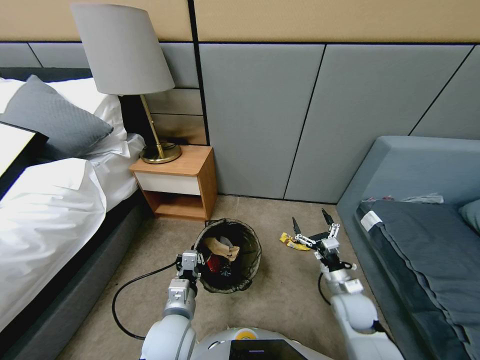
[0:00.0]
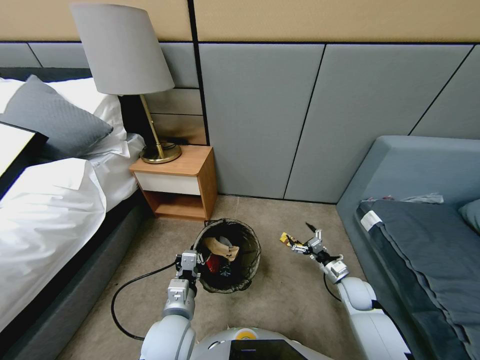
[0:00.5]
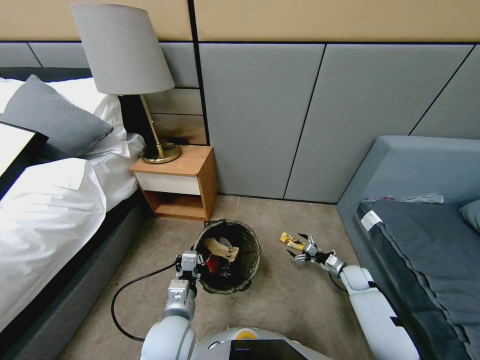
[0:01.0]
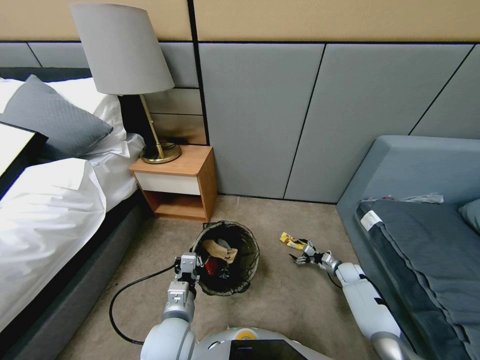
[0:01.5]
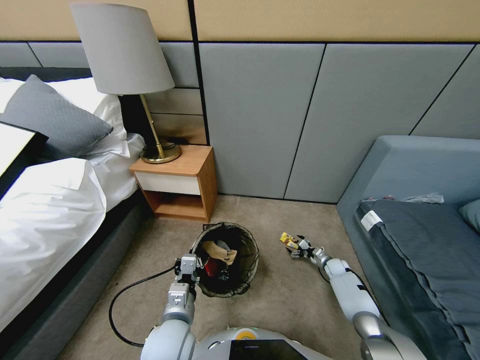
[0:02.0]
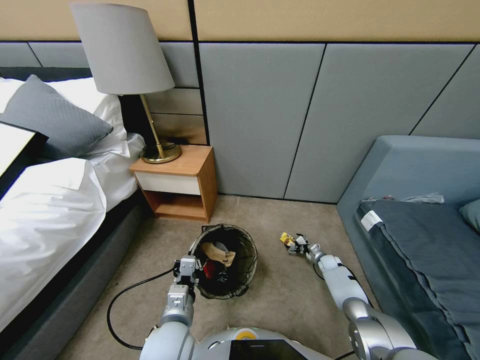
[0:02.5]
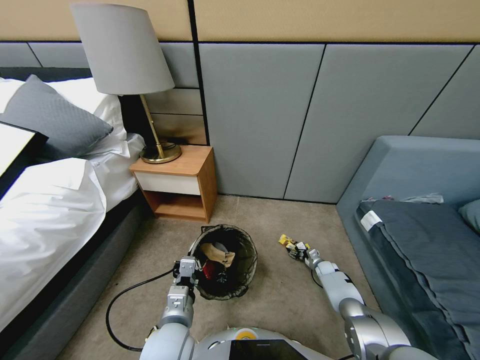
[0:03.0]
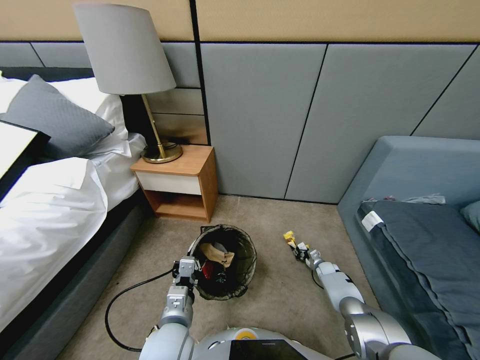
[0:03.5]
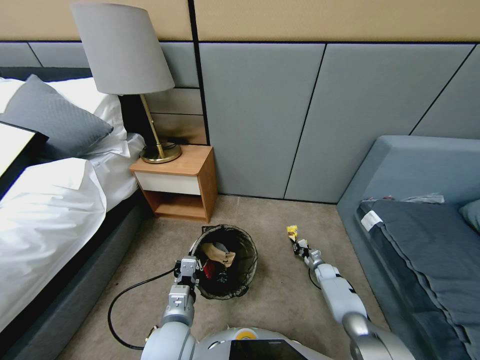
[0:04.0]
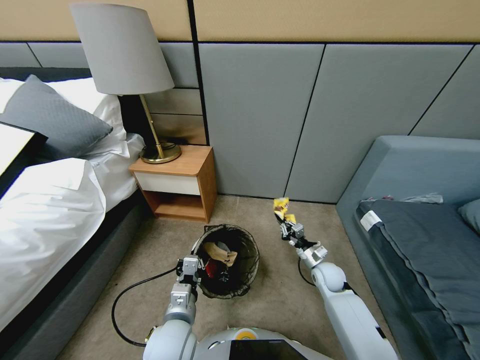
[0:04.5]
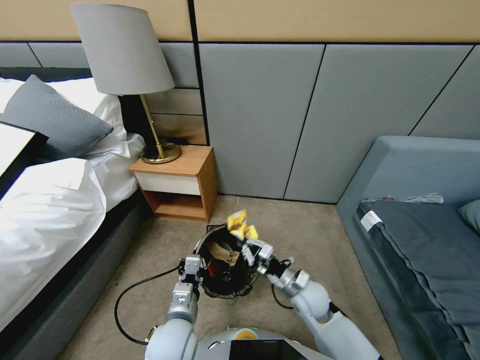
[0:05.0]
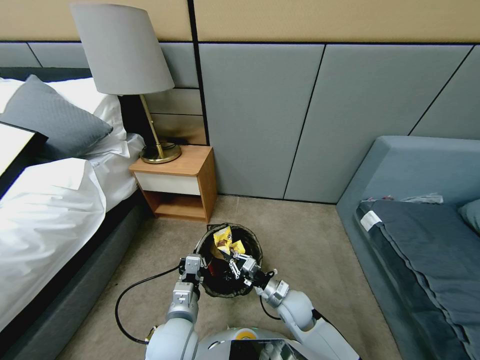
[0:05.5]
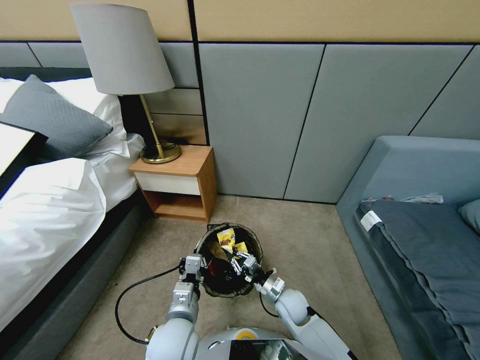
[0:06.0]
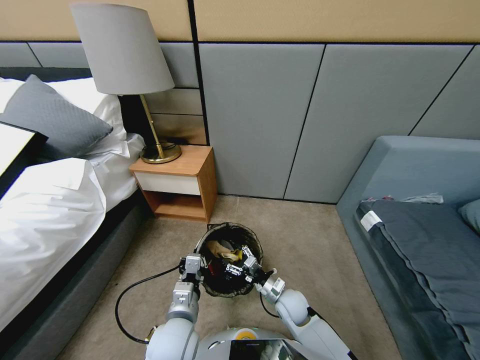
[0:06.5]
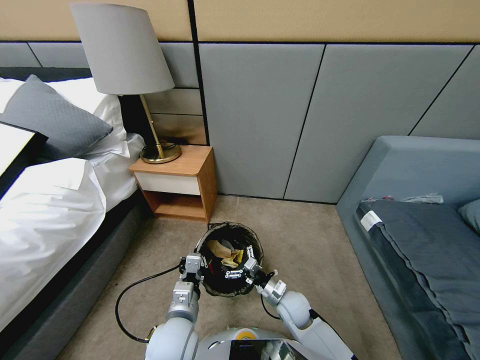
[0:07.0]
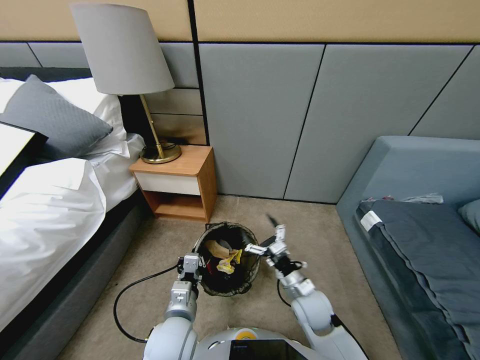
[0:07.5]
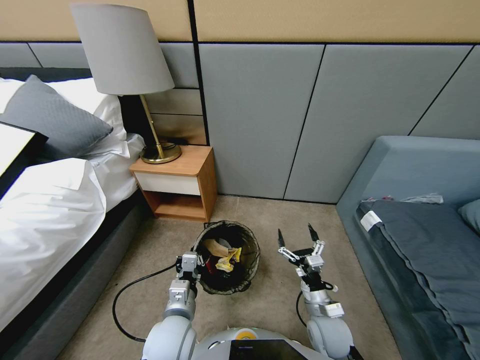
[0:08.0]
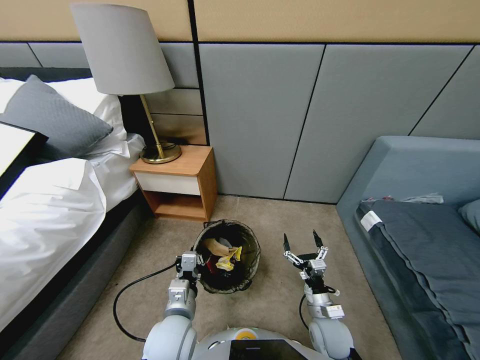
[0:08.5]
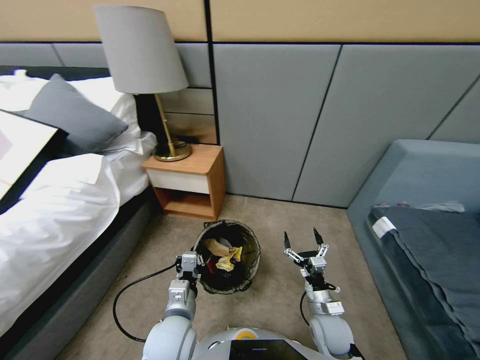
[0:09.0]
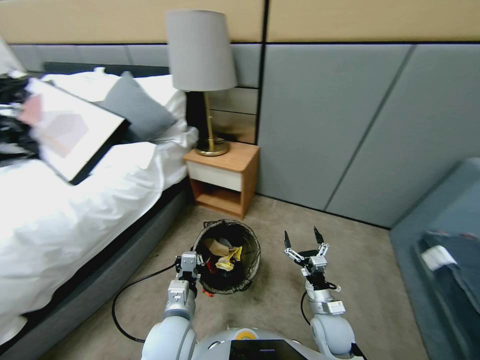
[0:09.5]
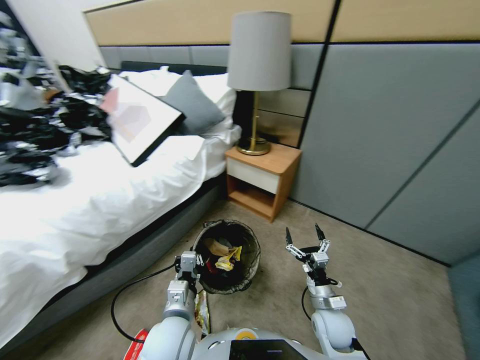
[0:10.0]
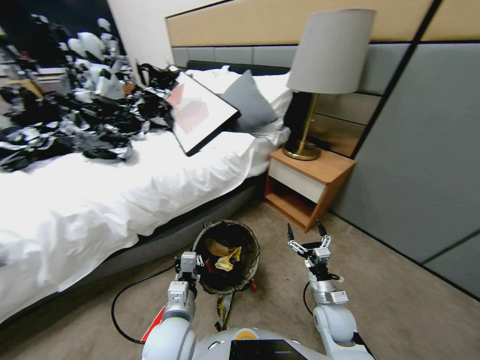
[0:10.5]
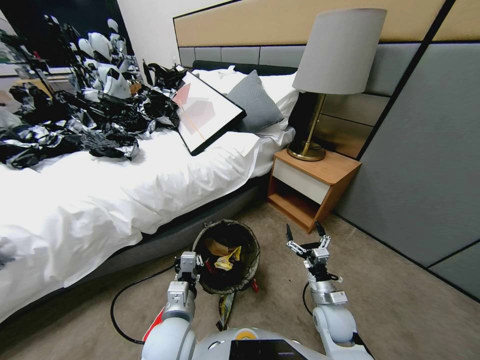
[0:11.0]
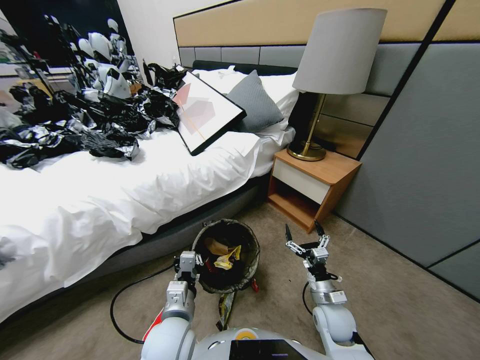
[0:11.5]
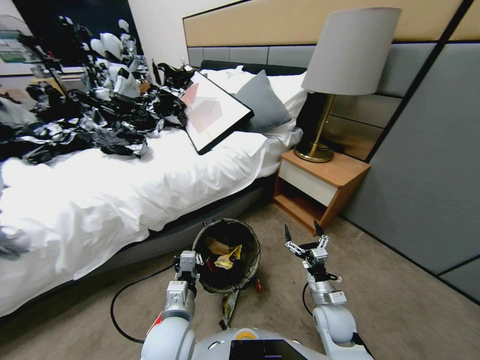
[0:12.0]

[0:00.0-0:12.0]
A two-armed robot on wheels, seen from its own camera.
Task of the whole recording: Pick up the trash bin, then pick up the garbage from the floor and place it into the trash bin.
0:00.0 to 0:02.0: The right gripper is displaced downward, forward and to the right by some 25 cm.
0:02.0 to 0:04.0: The right gripper closes its fingers.
0:04.0 to 0:06.0: The right gripper goes roughly 30 cm to the left, backward and upward.
0:06.0 to 0:08.0: The right gripper shifts roughly 10 cm backward, to the right and upward, and opens.

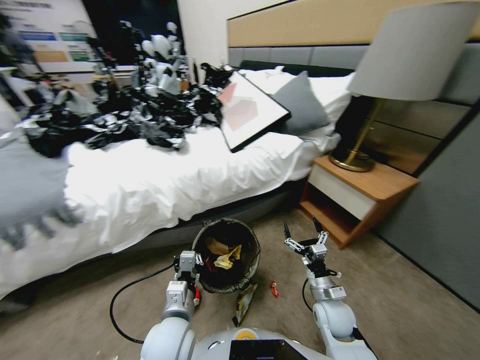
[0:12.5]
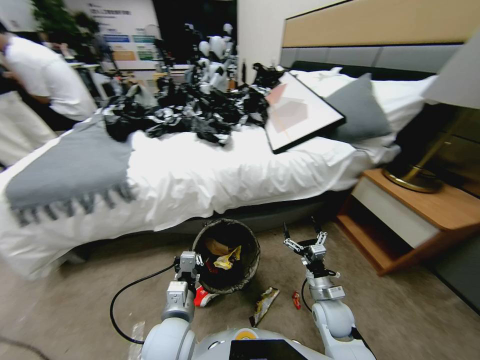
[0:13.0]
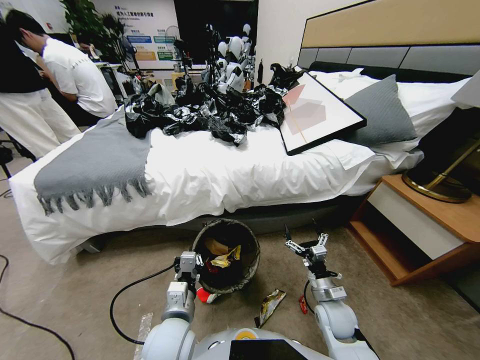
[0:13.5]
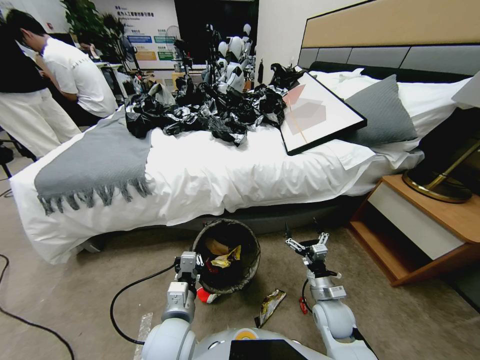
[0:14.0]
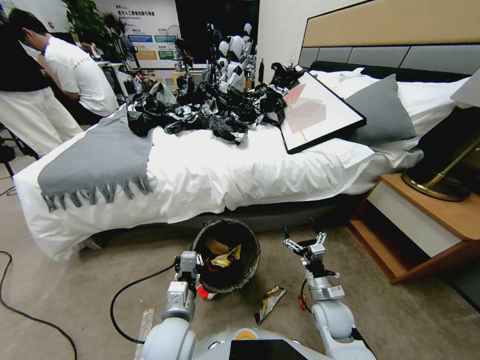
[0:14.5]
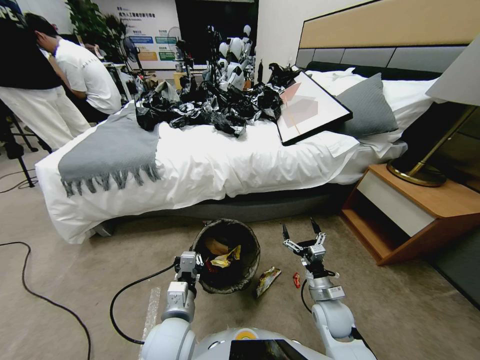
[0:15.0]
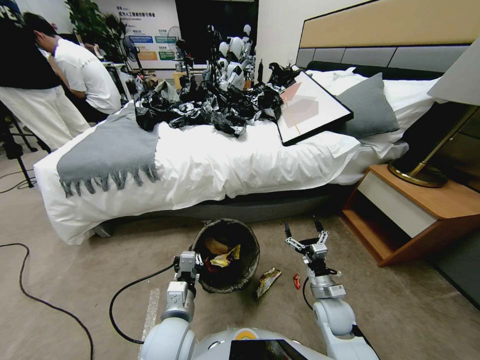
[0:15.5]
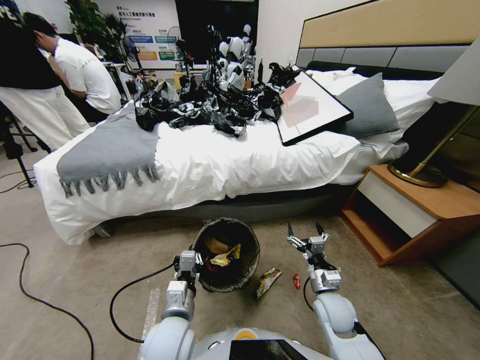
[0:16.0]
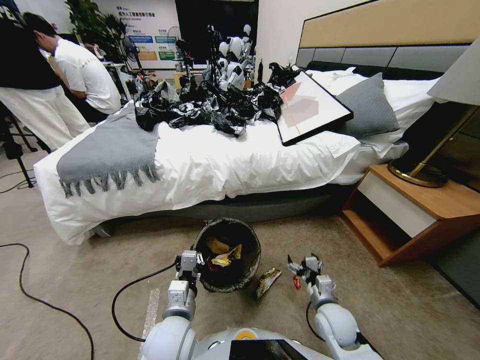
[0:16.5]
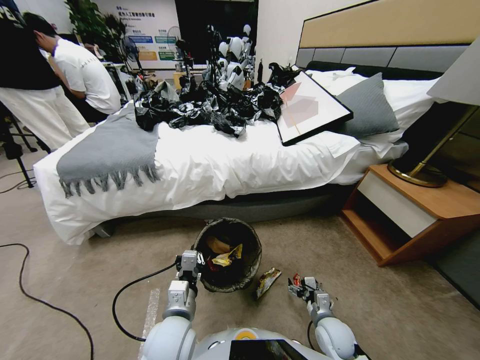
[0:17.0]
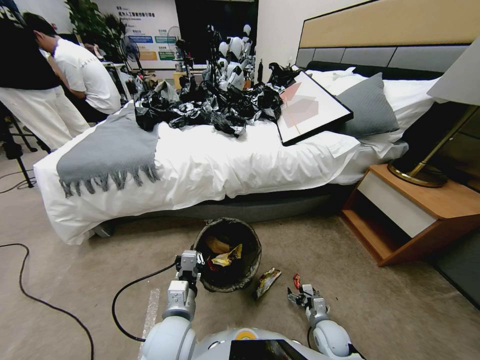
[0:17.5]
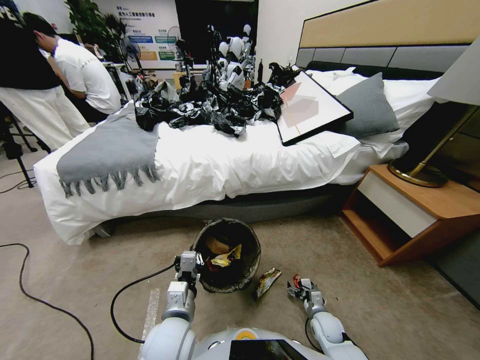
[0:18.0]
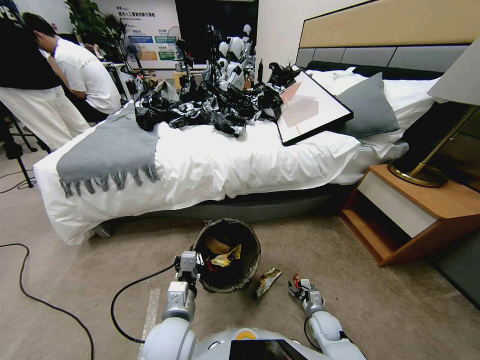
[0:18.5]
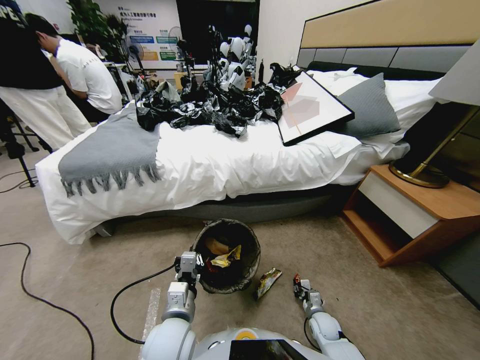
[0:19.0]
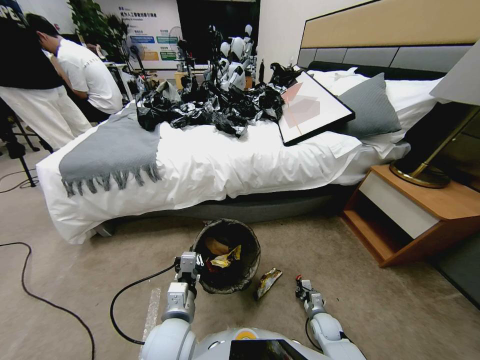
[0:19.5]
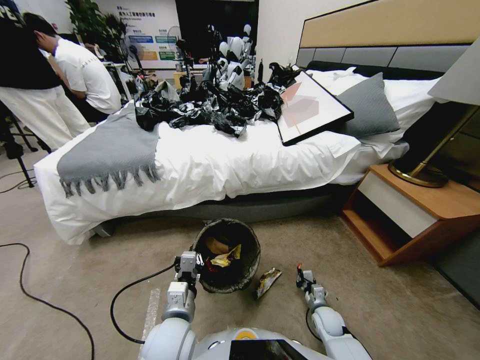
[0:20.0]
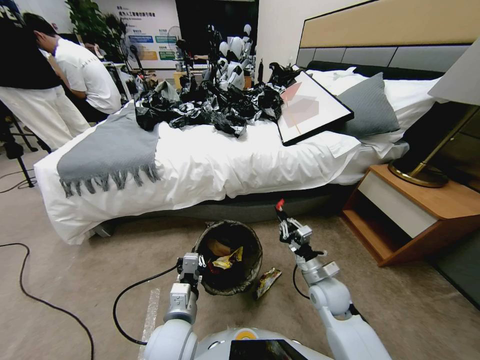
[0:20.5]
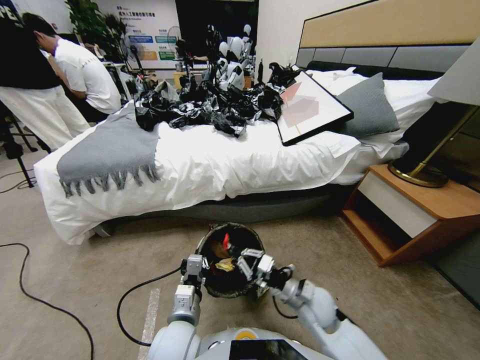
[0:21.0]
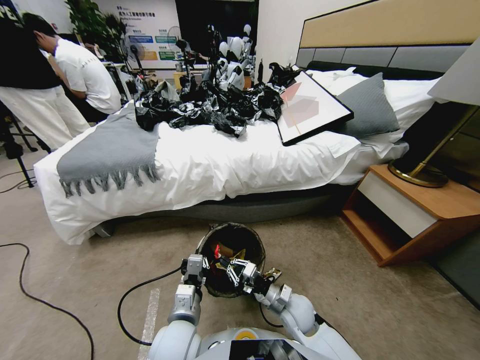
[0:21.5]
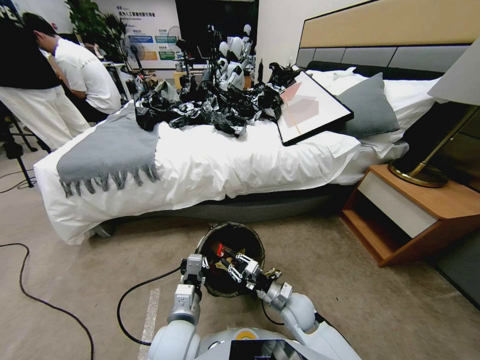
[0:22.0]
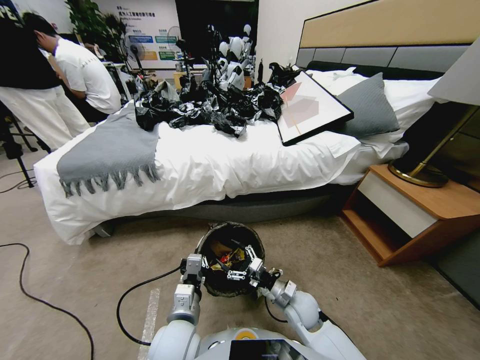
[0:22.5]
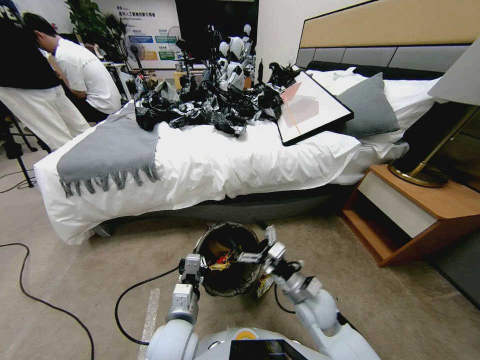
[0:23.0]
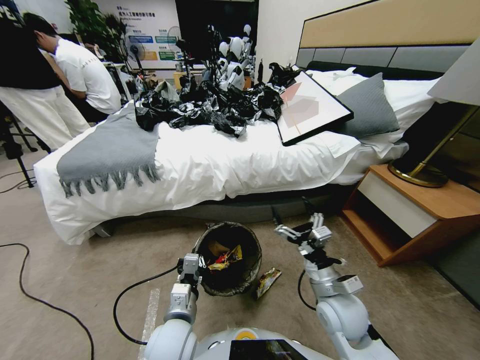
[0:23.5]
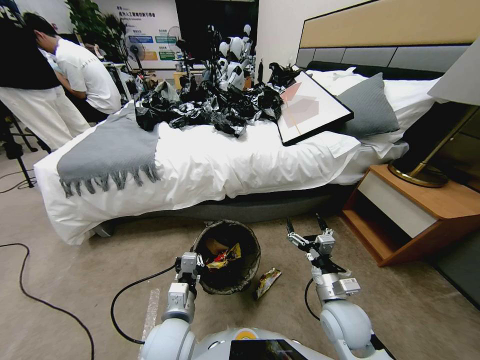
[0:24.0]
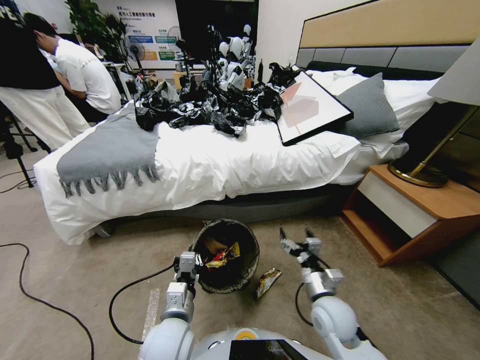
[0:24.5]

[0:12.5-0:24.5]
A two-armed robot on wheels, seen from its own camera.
Task of the whole recording: Pick up the trash bin, then pick up the garbage from the floor and place it into the trash bin.
0:16.5 to 0:18.5: The right gripper heads downward, covering approximately 15 cm.
0:18.5 to 0:20.5: The right gripper is displaced upward by some 25 cm, and closes.
0:20.5 to 0:22.5: The right gripper moves downward and to the left, some 10 cm, and opens its fingers.
0:22.5 to 0:24.5: The right gripper goes roughly 5 cm upward.

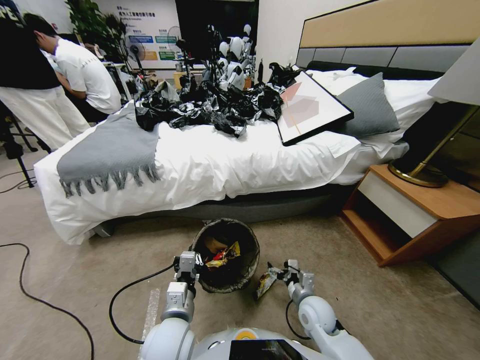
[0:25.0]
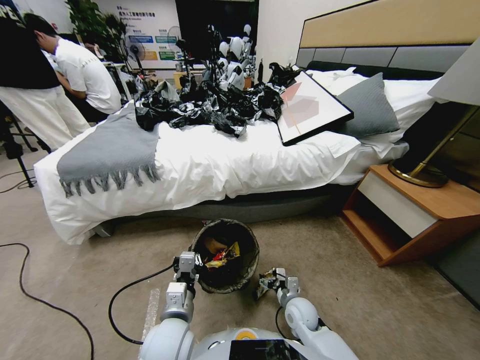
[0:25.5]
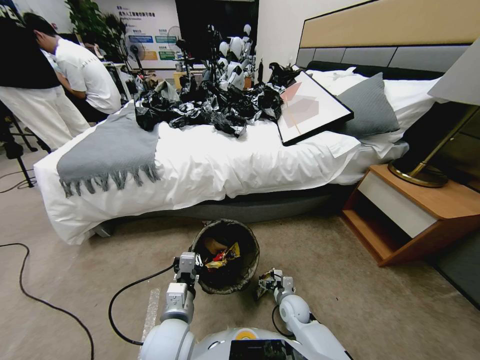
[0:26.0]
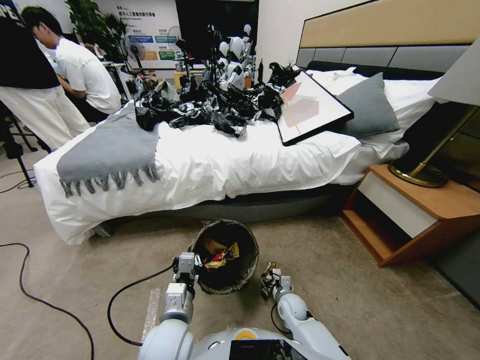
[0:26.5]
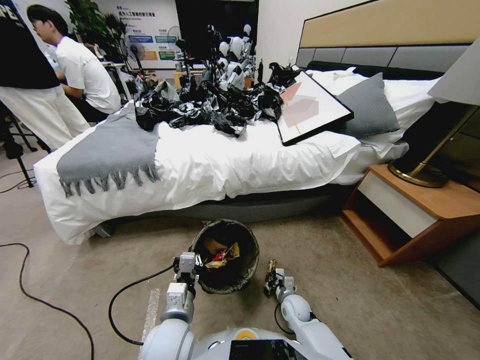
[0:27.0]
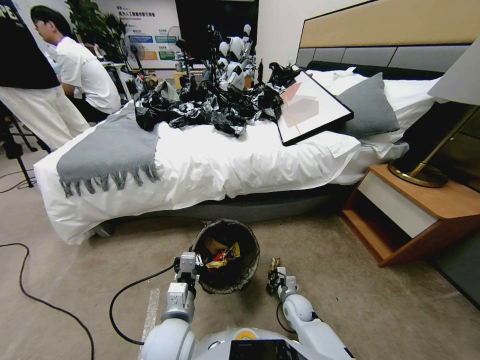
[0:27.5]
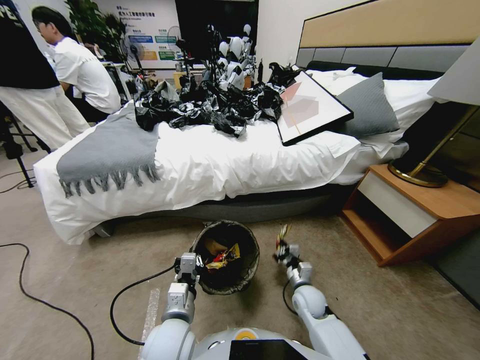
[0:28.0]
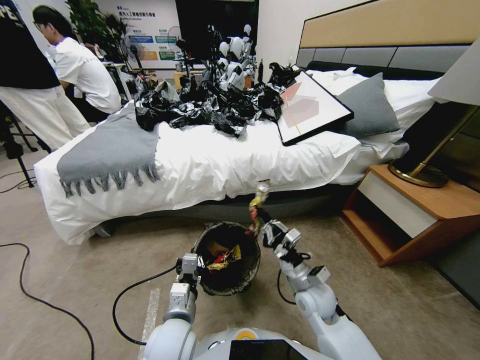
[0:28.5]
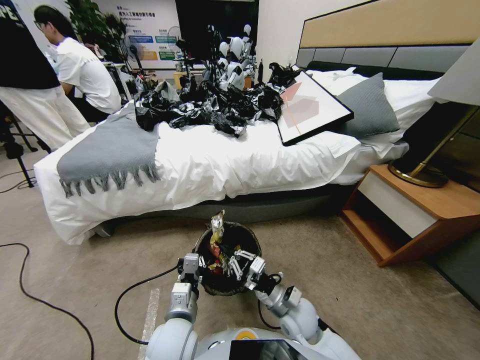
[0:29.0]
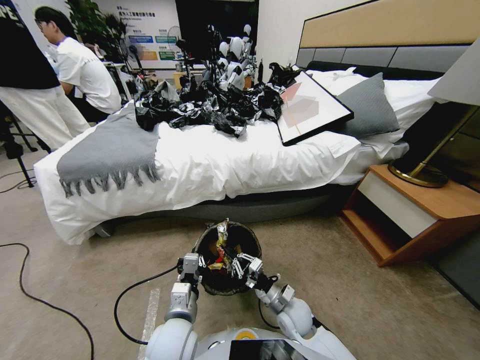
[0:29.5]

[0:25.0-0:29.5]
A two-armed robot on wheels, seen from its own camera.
Task of the whole recording: Pick up the trash bin, then pick up the garbage from the floor and place it into the trash bin.
0:25.0 to 0:27.0: The right gripper moves downward, approximately 10 cm, and closes its fingers.
0:27.0 to 0:29.5: The right gripper is displaced upward by about 10 cm.
